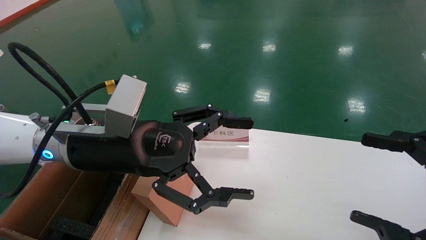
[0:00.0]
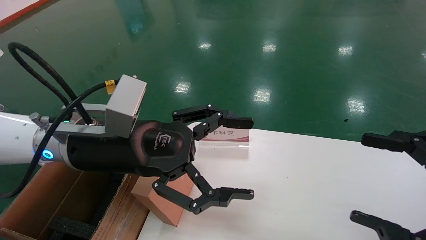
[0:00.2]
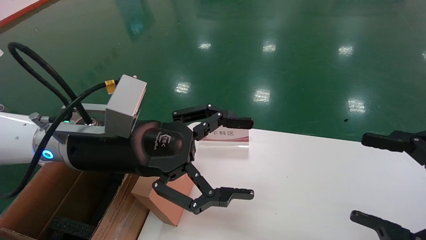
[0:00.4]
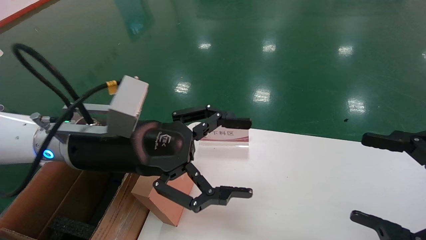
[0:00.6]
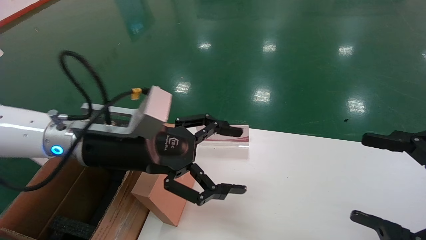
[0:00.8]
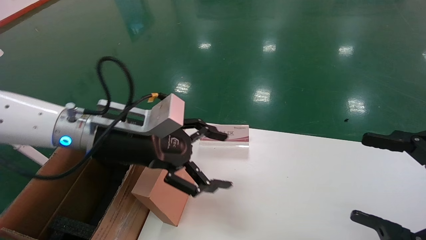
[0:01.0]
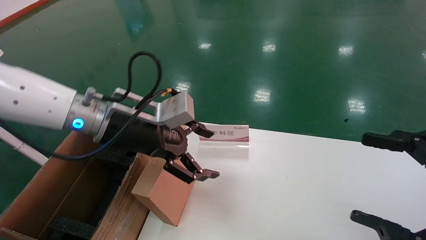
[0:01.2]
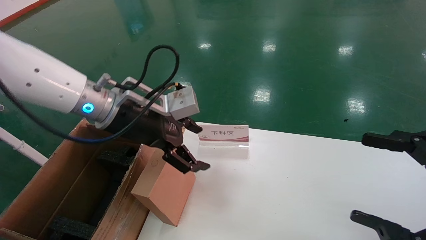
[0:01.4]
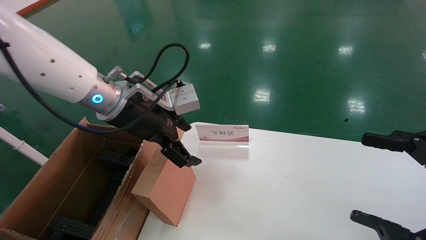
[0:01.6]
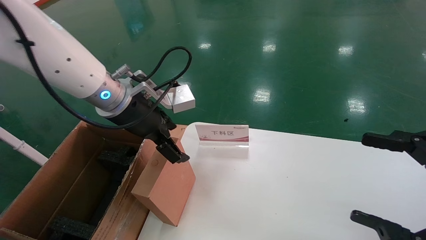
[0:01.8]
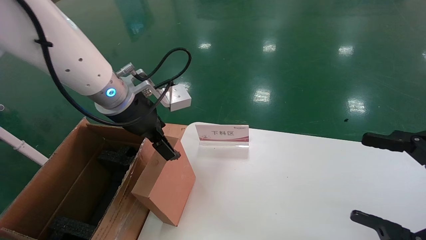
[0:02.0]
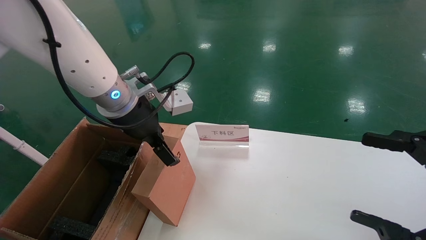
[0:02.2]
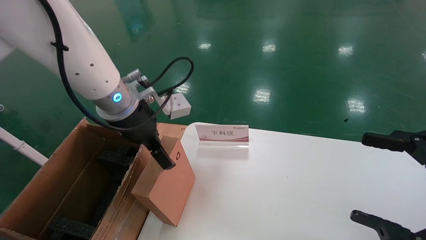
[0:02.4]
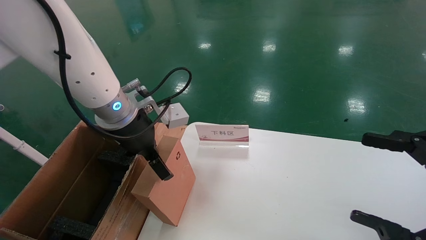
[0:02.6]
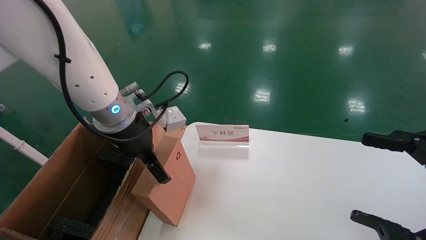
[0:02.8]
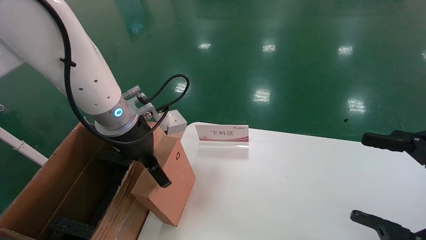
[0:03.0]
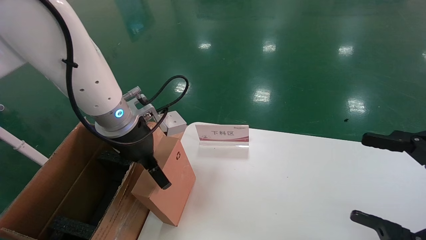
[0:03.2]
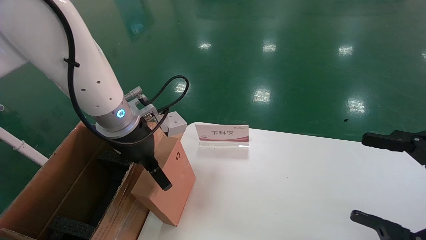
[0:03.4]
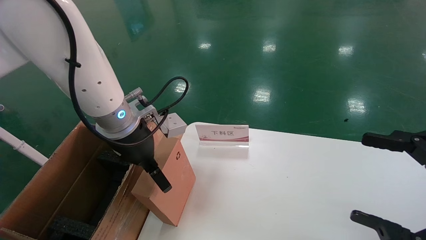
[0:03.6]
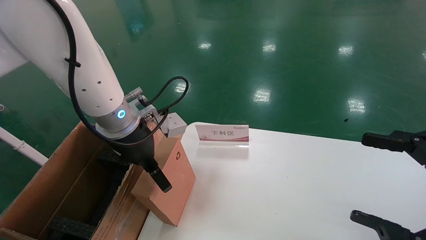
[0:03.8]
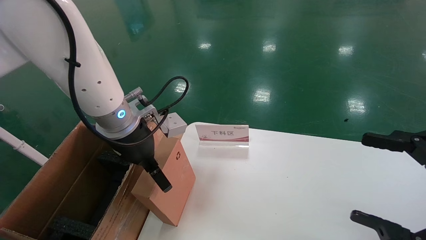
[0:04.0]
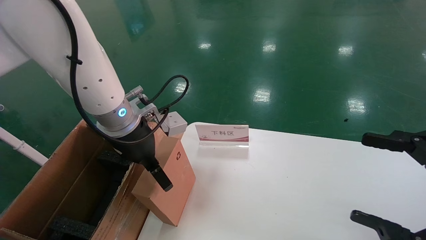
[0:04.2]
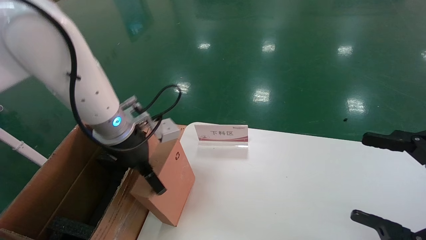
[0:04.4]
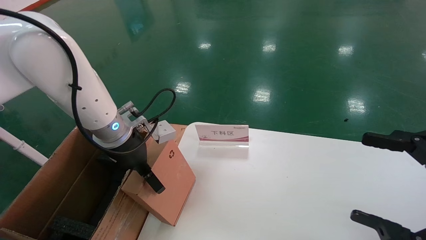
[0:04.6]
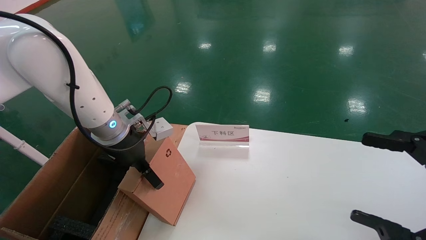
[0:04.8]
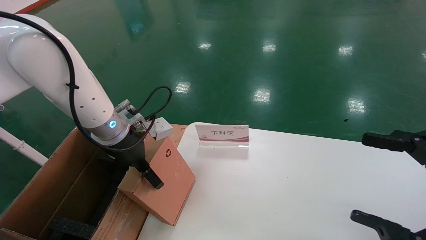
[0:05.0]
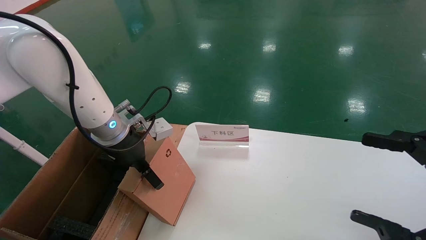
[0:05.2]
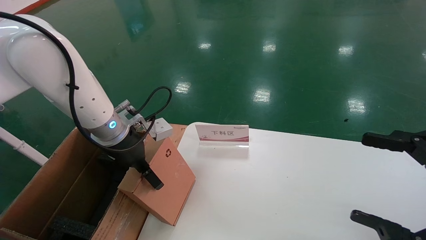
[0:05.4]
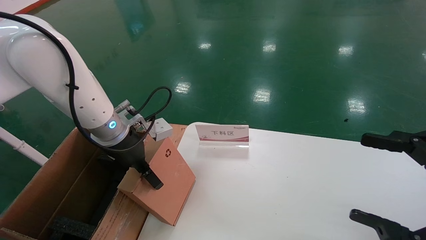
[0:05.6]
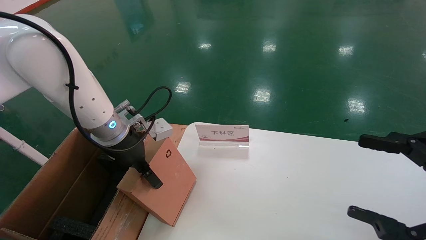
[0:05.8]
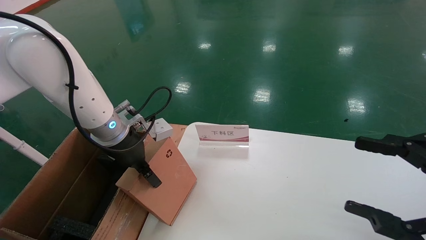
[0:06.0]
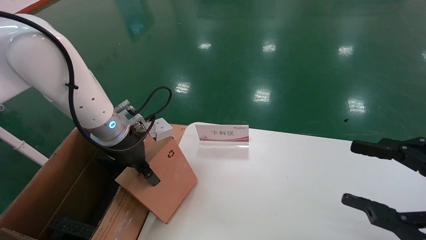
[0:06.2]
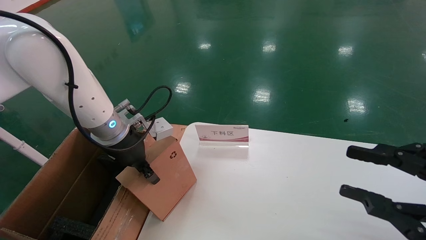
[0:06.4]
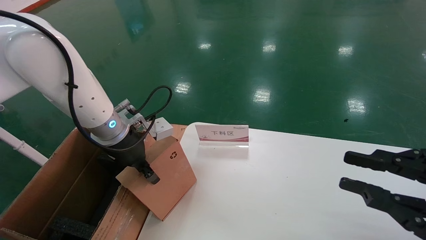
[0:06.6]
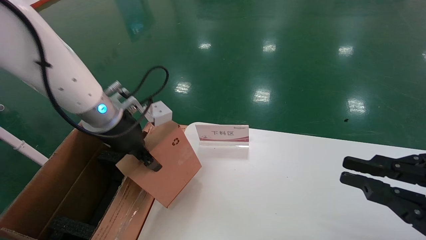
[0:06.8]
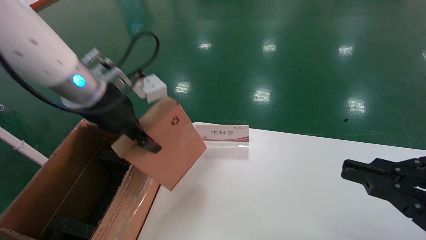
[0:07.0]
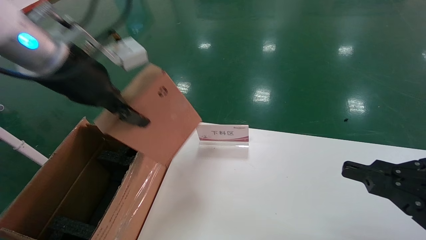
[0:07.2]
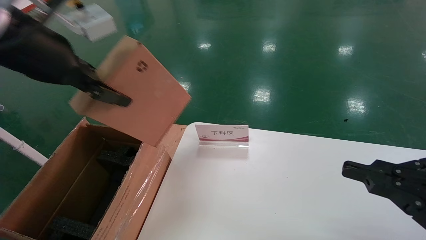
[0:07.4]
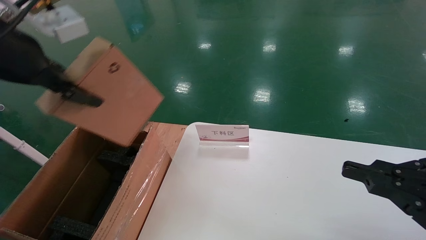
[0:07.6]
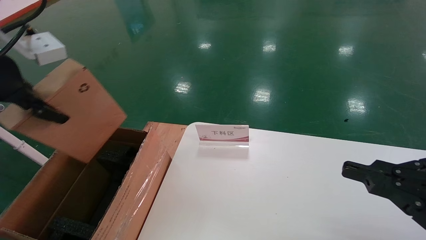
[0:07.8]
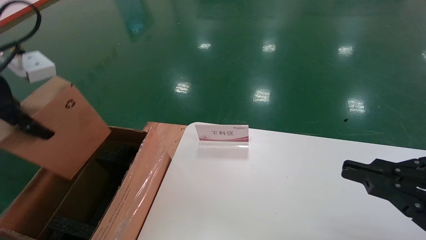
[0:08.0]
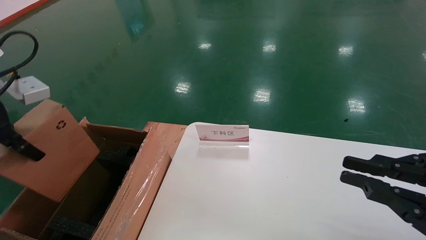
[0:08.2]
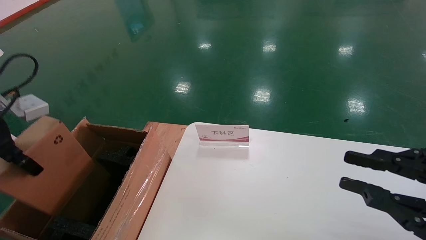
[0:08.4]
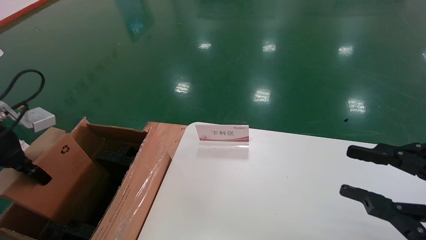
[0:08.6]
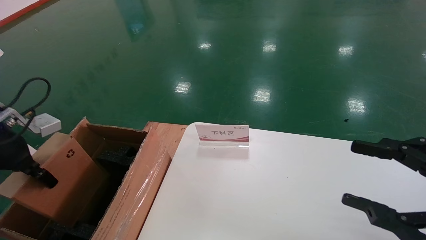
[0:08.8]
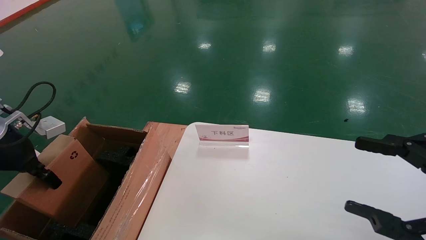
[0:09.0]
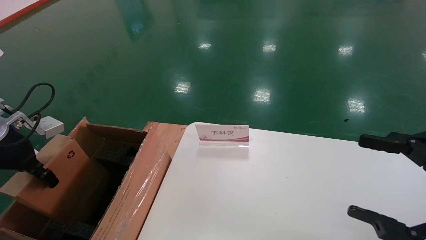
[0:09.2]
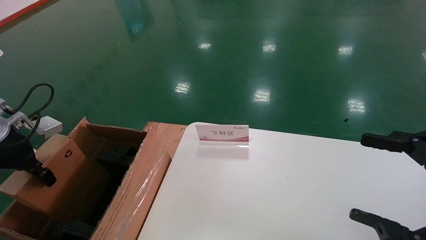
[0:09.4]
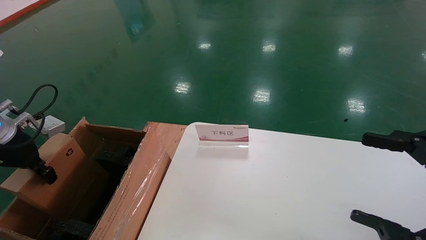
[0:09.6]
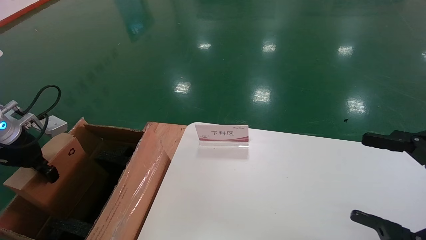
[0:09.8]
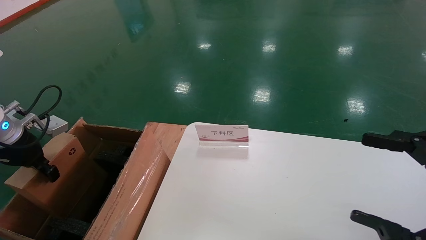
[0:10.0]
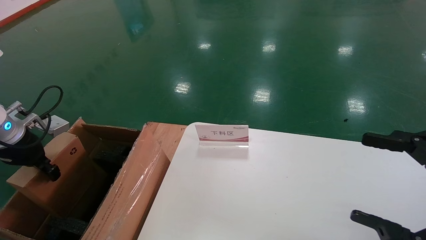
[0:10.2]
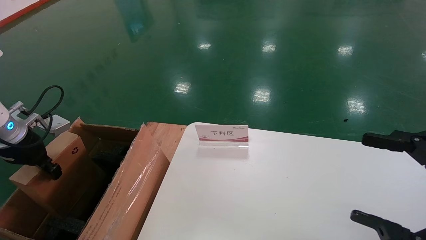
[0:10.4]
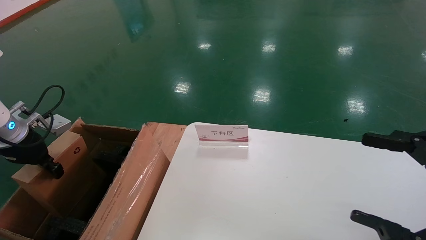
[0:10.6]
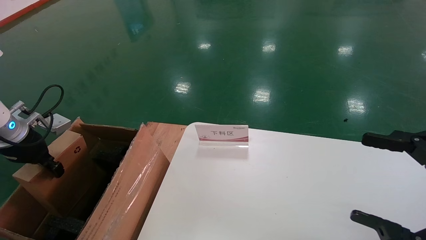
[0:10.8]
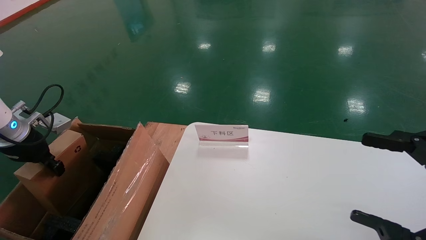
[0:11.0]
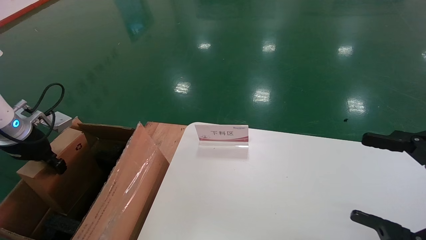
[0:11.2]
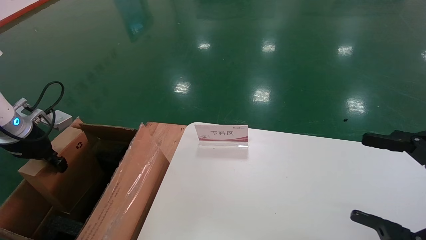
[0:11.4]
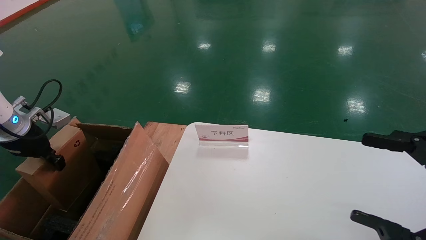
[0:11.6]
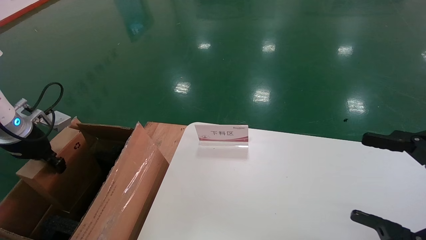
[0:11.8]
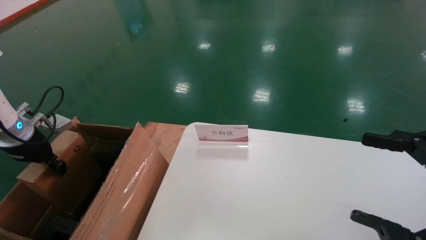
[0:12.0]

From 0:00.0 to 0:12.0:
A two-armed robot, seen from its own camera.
Task of the whole recording: pick up the small cardboard box and load it into the large cardboard box.
Step, from 0:01.0 to 0:06.6: Pick up the mouse and power cord box.
From 0:00.0 to 0:01.6: The left gripper goes about 10 cm forward.
From 0:03.0 to 0:04.4: The grippers stay close to where they were, moving slightly.
From 0:04.4 to 0:06.0: The left gripper closes its fingers.
From 0:06.0 to 0:07.6: The left gripper moves upward and backward, roughly 20 cm, and closes. Meanwhile the right gripper closes its fingers.
From 0:07.6 to 0:09.0: The right gripper opens its fingers; the left gripper moves downward and to the left, approximately 20 cm.
From 0:09.0 to 0:10.4: The left gripper changes place by approximately 5 cm.
From 0:10.4 to 0:12.0: There are only small adjustments of the grippers.

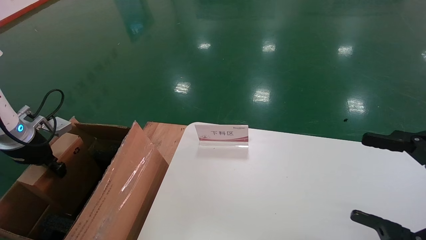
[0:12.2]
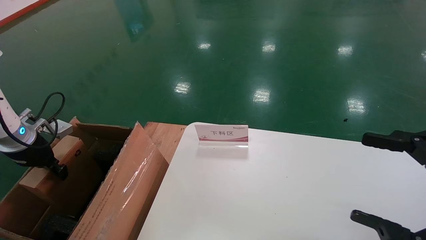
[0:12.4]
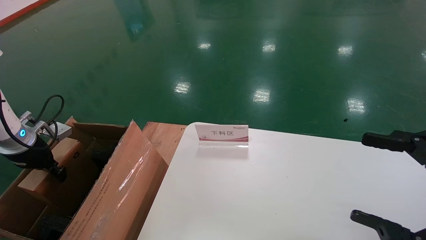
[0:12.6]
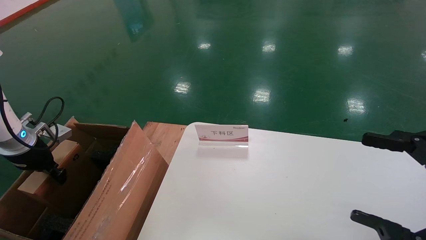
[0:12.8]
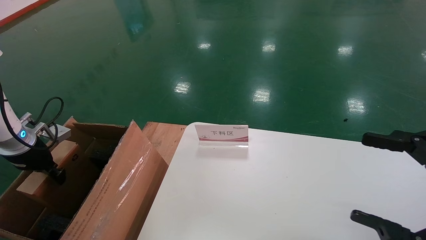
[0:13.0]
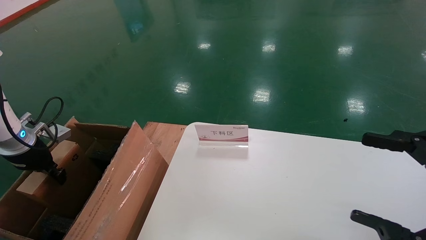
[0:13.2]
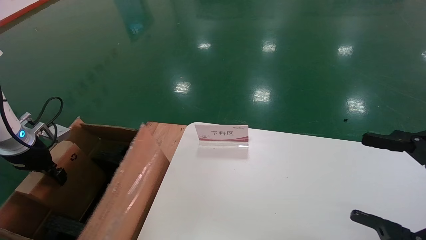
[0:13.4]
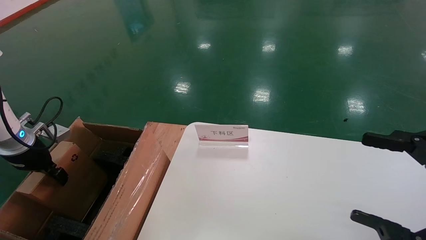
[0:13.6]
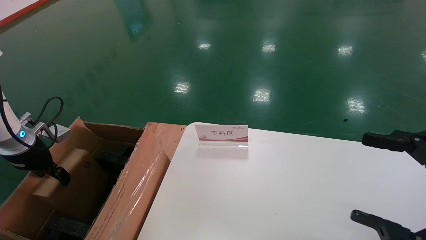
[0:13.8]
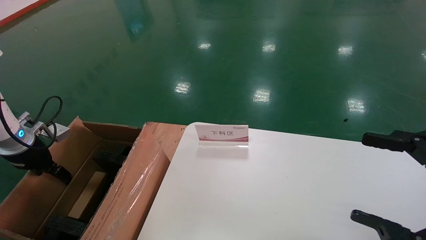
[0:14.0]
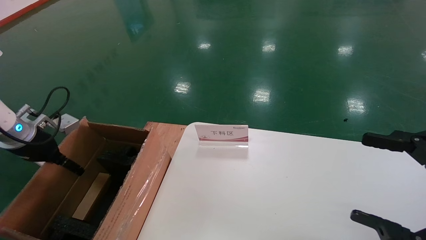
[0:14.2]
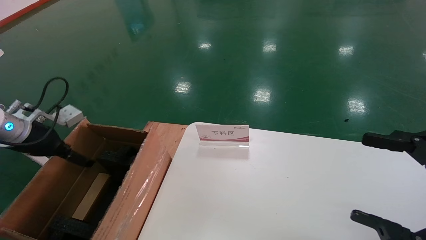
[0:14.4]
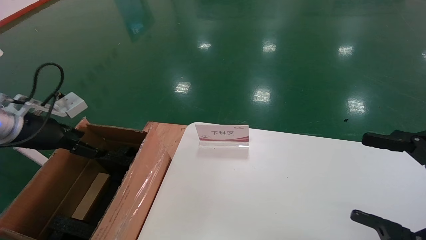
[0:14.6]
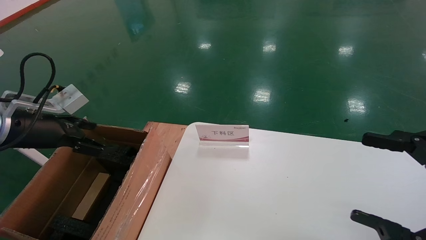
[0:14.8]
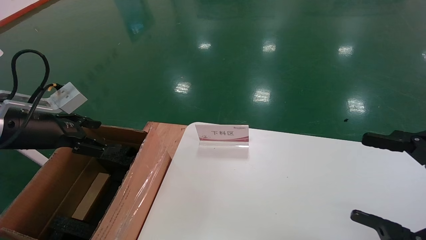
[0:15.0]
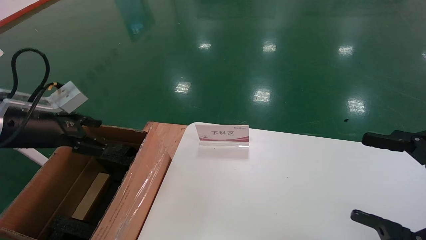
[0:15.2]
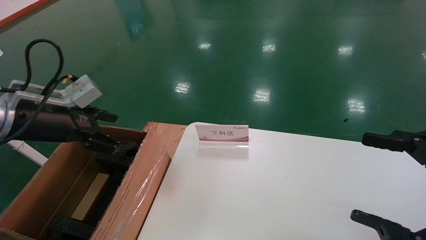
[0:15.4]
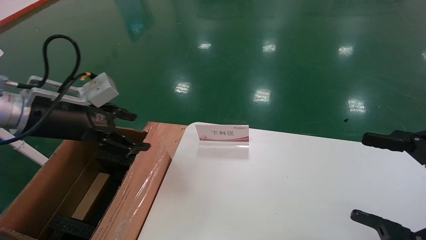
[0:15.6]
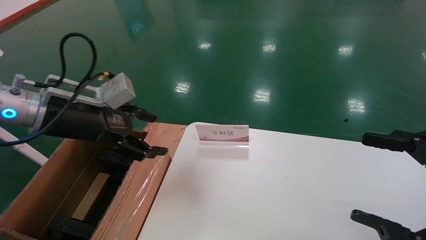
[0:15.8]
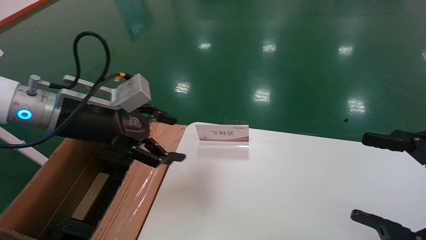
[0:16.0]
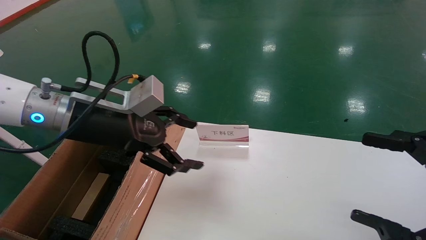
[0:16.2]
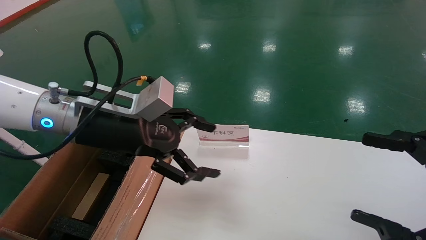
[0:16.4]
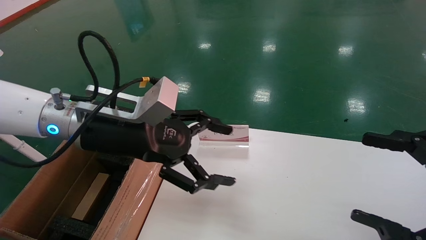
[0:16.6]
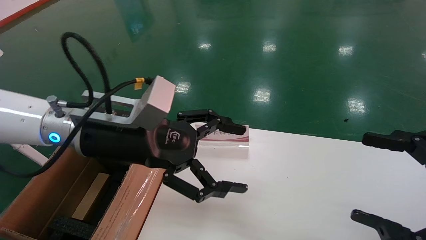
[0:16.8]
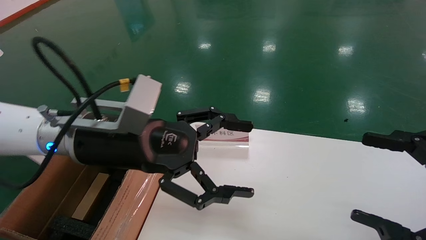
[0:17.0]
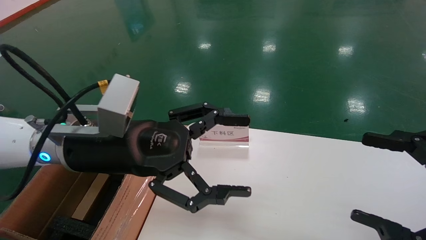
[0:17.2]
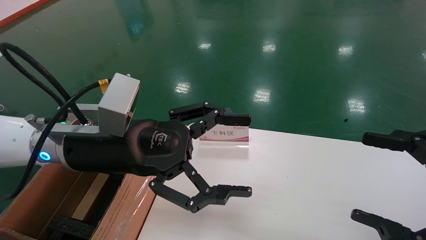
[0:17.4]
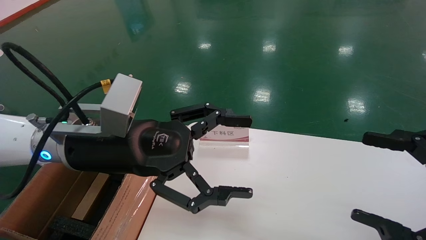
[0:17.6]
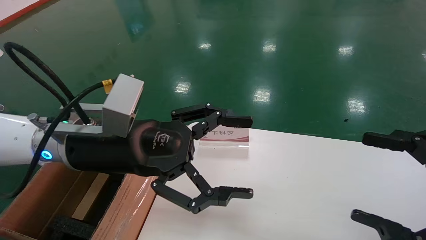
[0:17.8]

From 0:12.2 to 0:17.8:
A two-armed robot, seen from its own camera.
Task of the whole recording: pick up the small cardboard box and load it into the large cardboard box.
From 0:12.2 to 0:13.6: The grippers make only small movements.
From 0:13.6 to 0:15.0: The left gripper shifts some 15 cm to the right, upward and backward, and opens.
From 0:15.0 to 0:16.4: The left gripper goes roughly 20 cm to the right.
